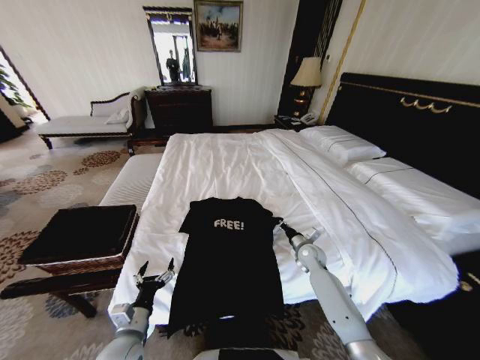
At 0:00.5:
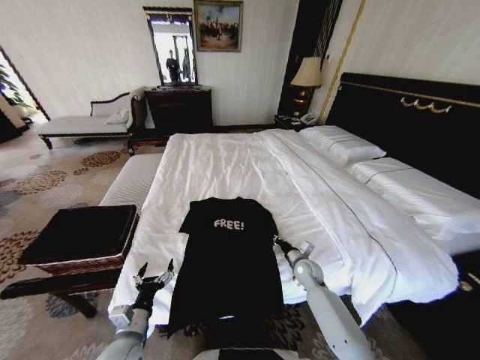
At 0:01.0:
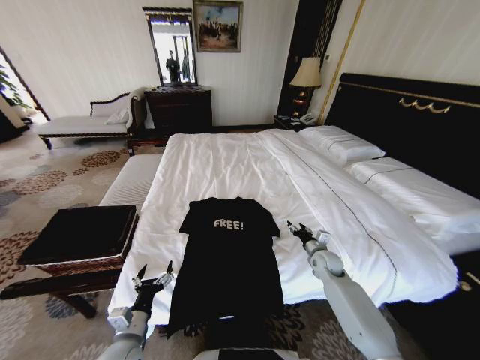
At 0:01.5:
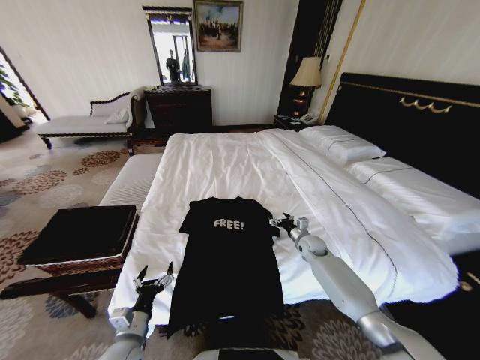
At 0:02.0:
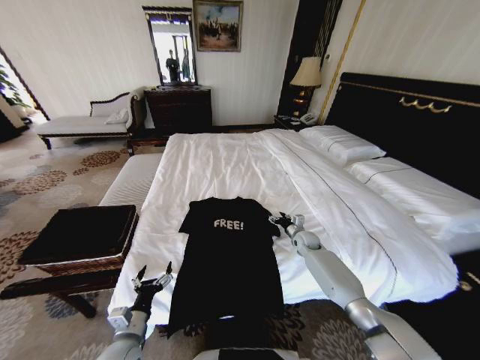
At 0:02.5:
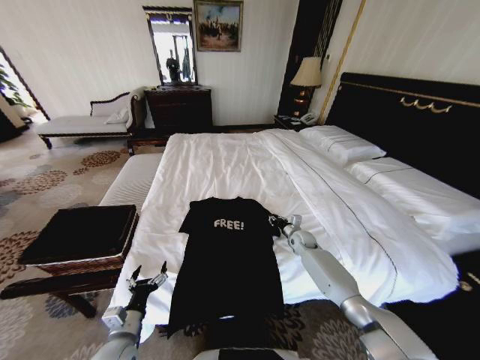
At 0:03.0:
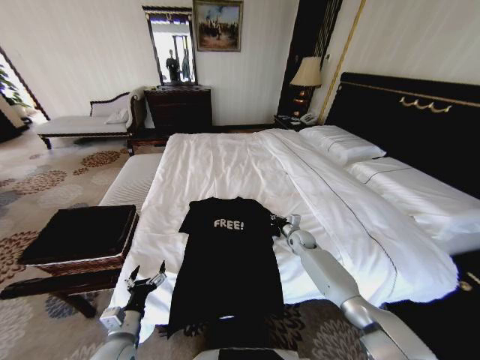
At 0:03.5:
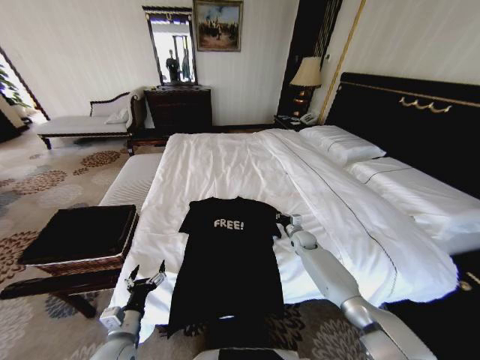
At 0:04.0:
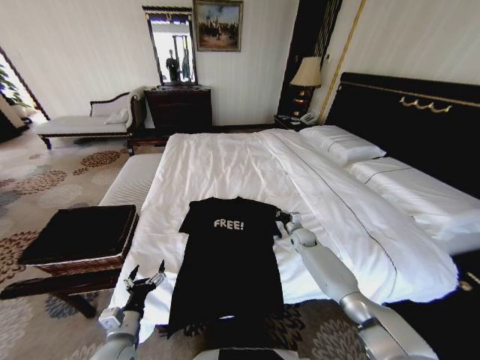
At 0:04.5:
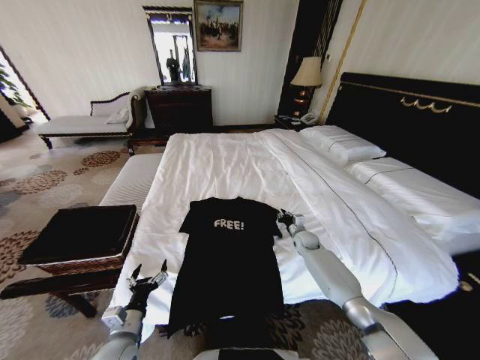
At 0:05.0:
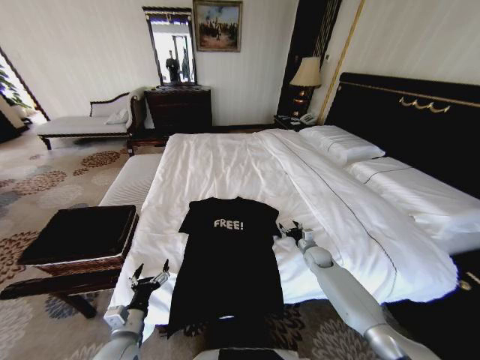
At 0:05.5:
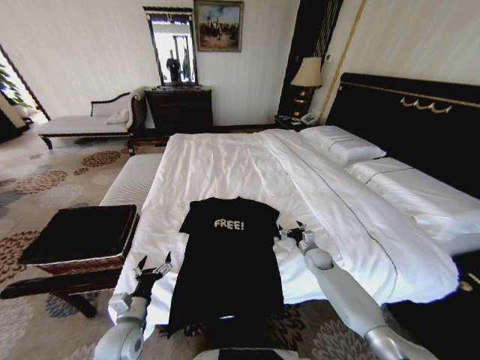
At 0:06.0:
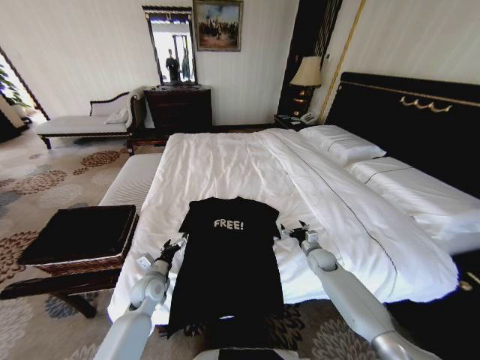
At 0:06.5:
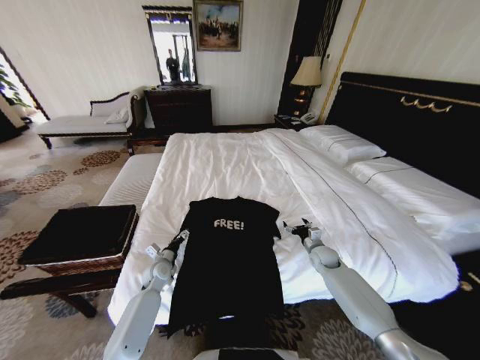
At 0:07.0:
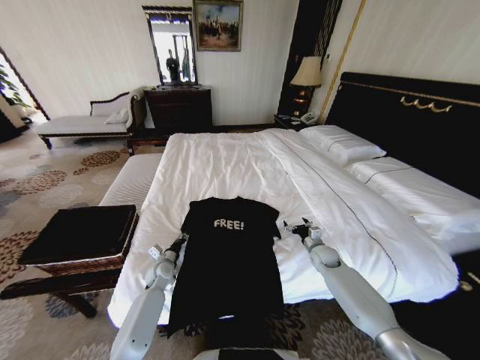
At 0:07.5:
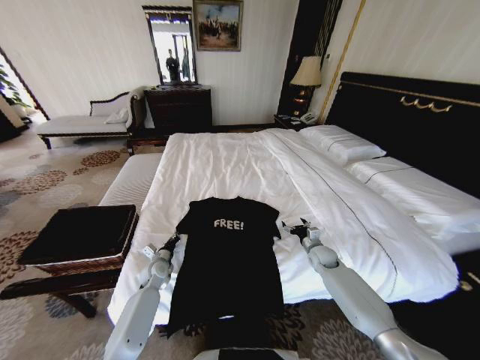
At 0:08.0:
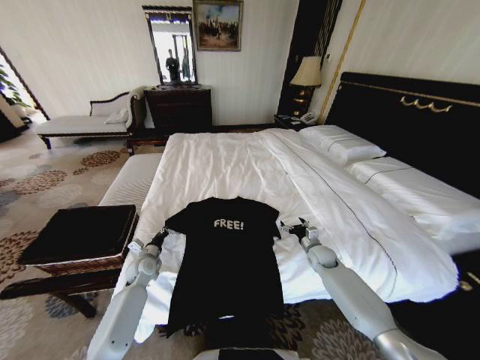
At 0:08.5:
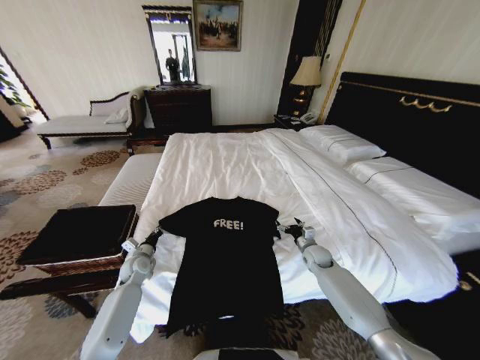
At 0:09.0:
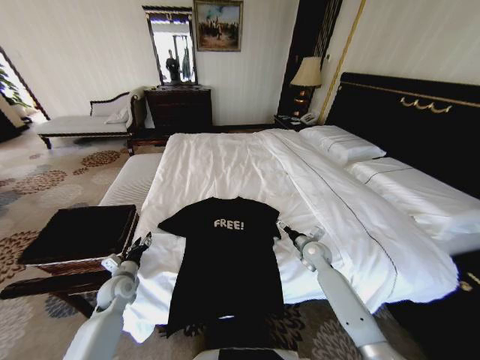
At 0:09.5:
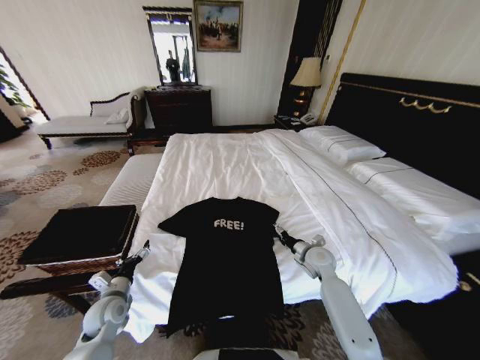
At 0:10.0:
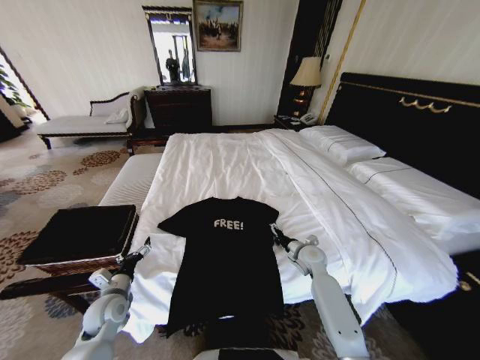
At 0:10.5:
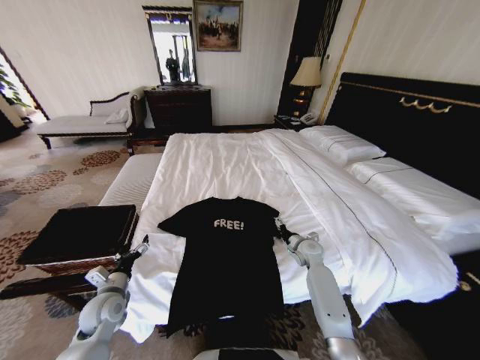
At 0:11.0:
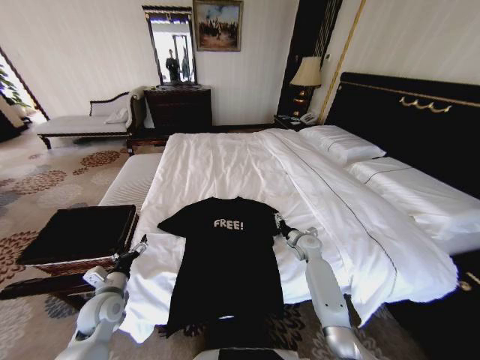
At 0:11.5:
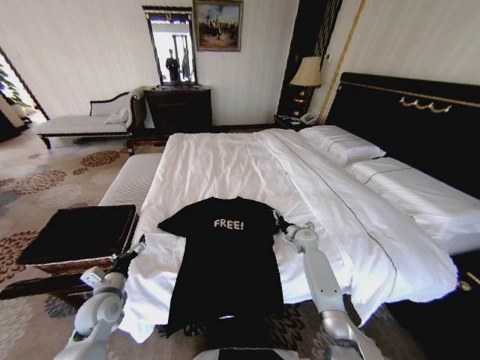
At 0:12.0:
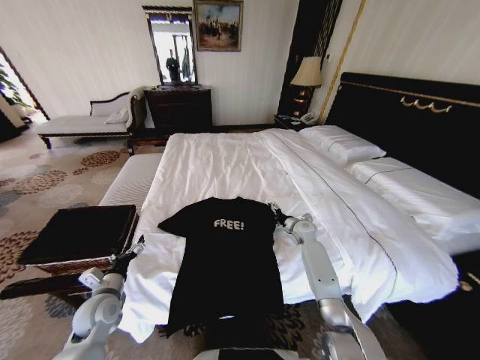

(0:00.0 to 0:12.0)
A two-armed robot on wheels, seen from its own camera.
Task of the whole recording: Fold the clothes on the bed and place them into the basket.
0:00.0 - 0:02.0: The right gripper shifts about 5 cm forward, and opens up.
0:02.0 - 0:04.0: The right gripper closes.
0:04.0 - 0:06.0: The right gripper shifts roughly 10 cm backward, and opens up; the left gripper travels forward by some 15 cm.
0:06.0 - 0:08.0: The left gripper goes roughly 10 cm forward and to the left, and closes.
0:08.0 - 0:10.0: The right gripper is displaced to the left by approximately 5 cm; the left gripper travels backward by roughly 15 cm, and opens.
0:10.0 - 0:12.0: The right gripper goes approximately 10 cm forward.

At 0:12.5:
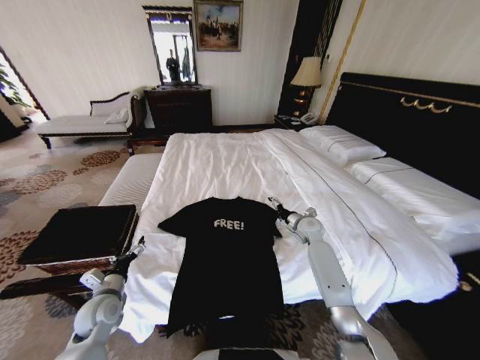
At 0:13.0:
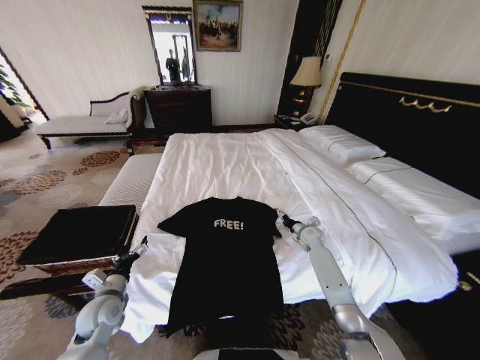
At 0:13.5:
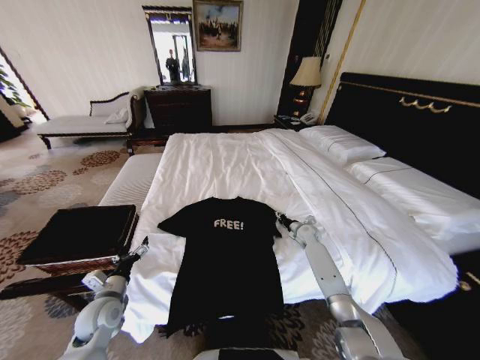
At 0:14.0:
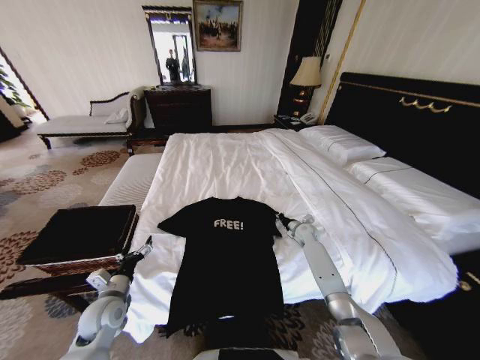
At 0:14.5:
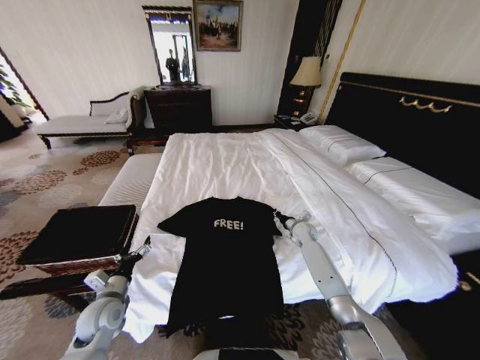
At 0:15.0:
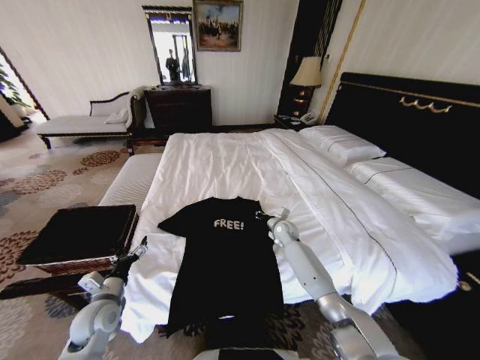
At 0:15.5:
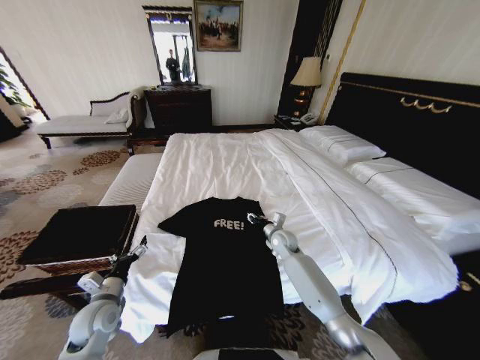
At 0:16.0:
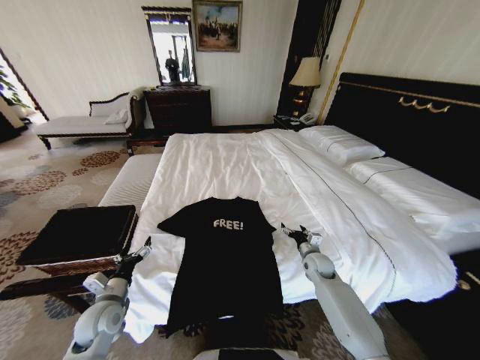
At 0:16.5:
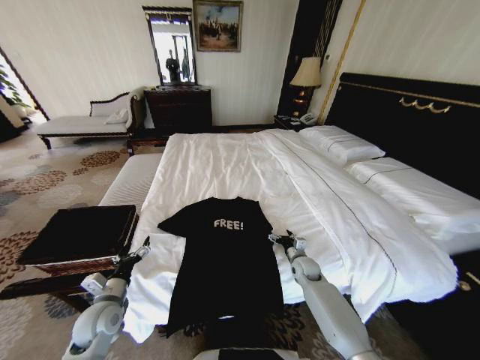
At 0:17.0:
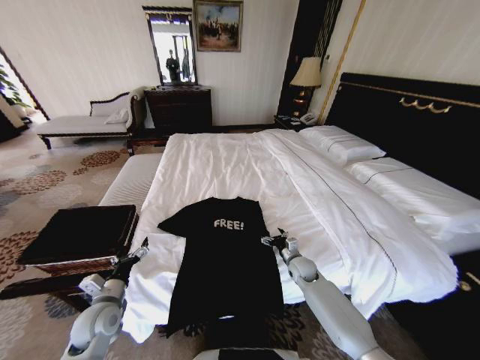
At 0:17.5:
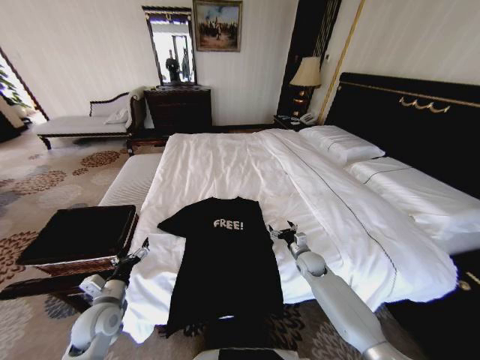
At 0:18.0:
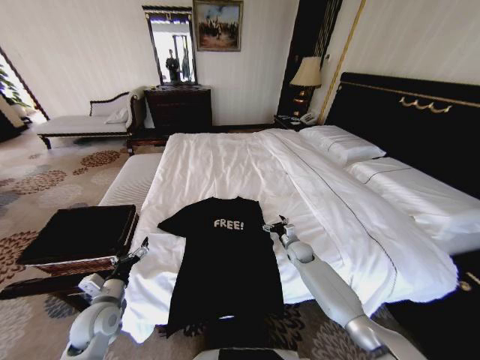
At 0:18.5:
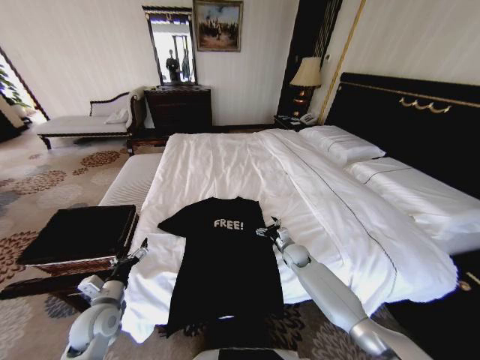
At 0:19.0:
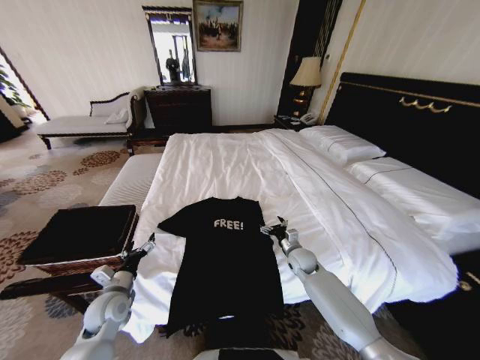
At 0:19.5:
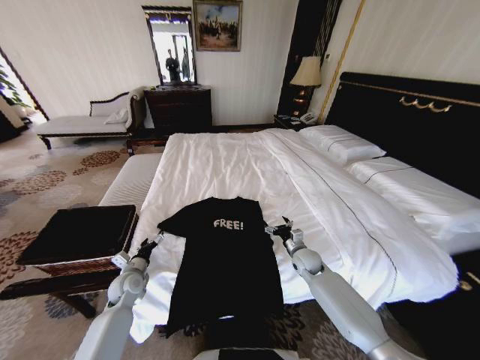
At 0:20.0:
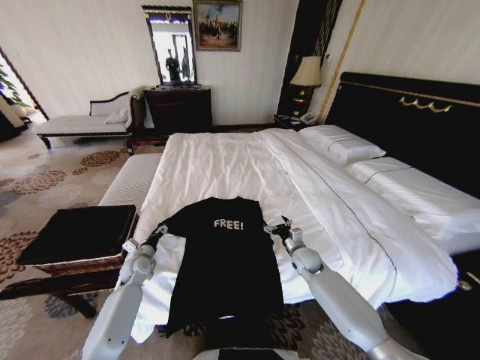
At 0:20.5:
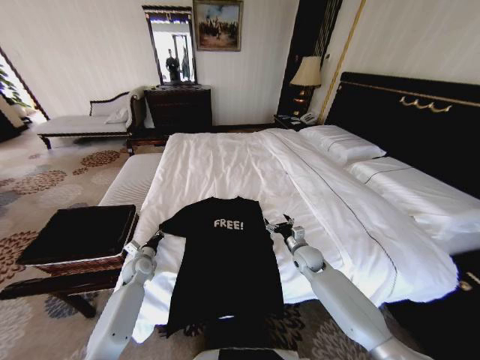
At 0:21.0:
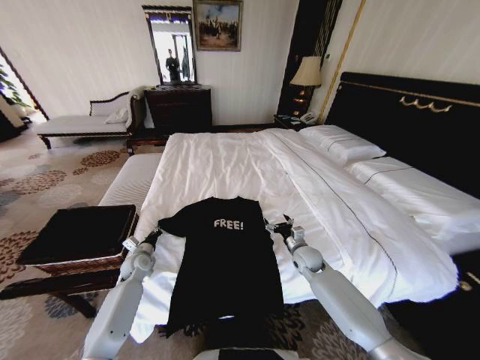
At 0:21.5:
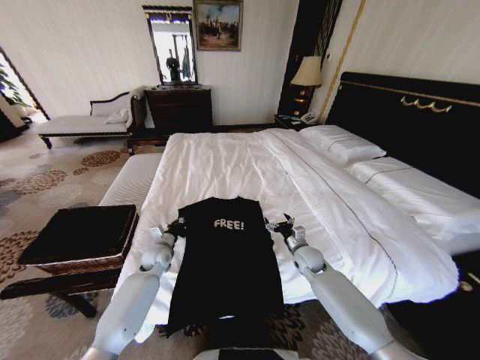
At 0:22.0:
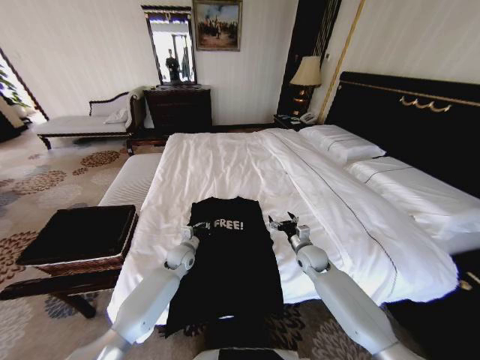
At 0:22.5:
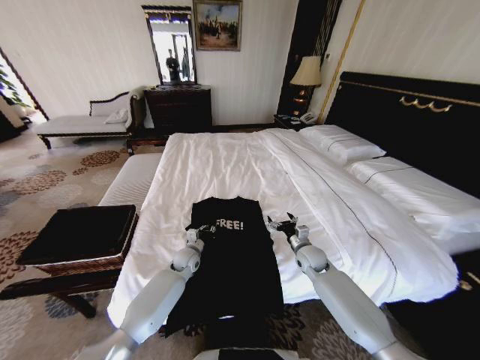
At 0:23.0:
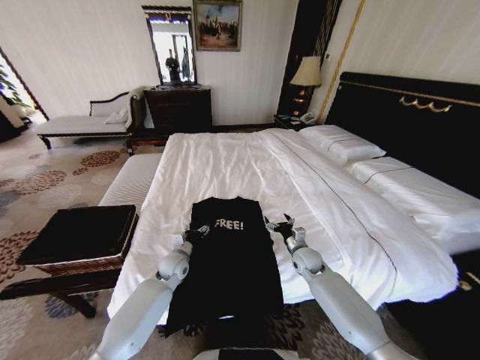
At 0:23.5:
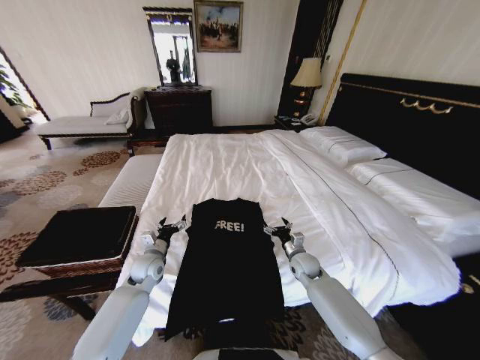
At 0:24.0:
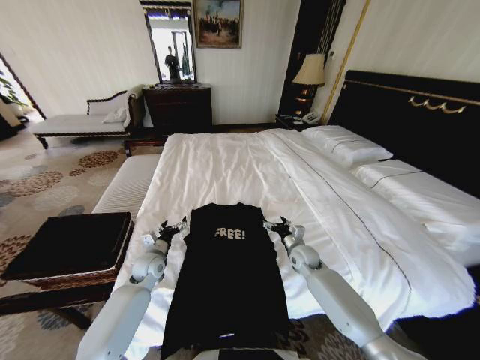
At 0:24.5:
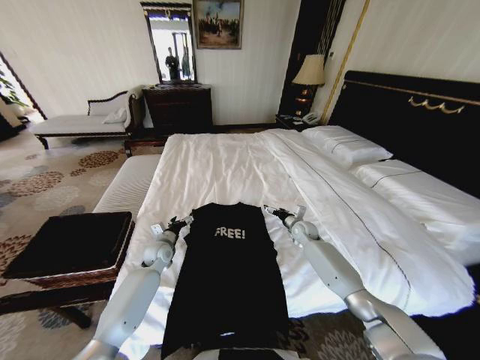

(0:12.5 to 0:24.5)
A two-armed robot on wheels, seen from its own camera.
Task of the whole recording: Fold the clothes on the bed and place them into the basket.
0:12.5 - 0:14.5: The right gripper travels downward by about 5 cm, and closes.
0:14.5 - 0:16.5: The right gripper moves backward and downward, roughly 15 cm, and opens up.
0:16.5 - 0:18.5: The right gripper changes place by about 5 cm.
0:18.5 - 0:20.5: The right gripper moves some 5 cm, while the left gripper shifts about 20 cm forward and downward, and closes.
0:20.5 - 0:22.5: The left gripper travels to the right by about 20 cm.
0:22.5 - 0:24.5: The right gripper is displaced forward by approximately 10 cm. Meanwhile the left gripper moves to the left, about 10 cm, and opens.

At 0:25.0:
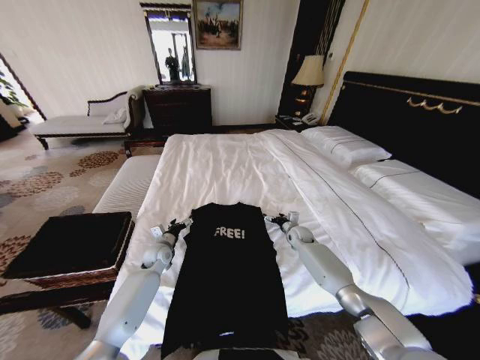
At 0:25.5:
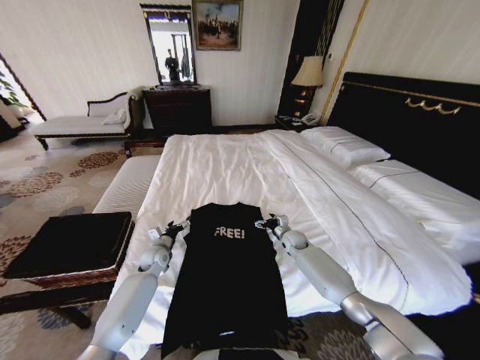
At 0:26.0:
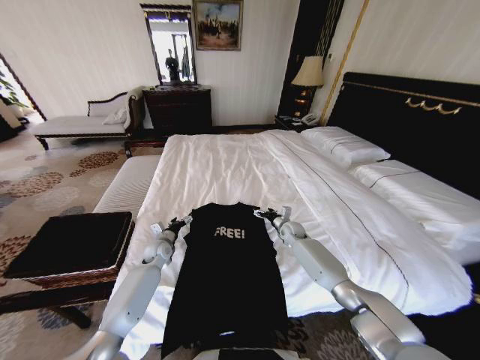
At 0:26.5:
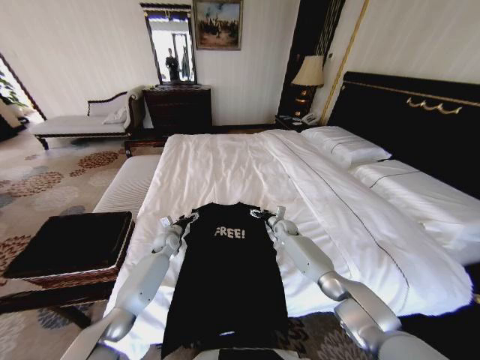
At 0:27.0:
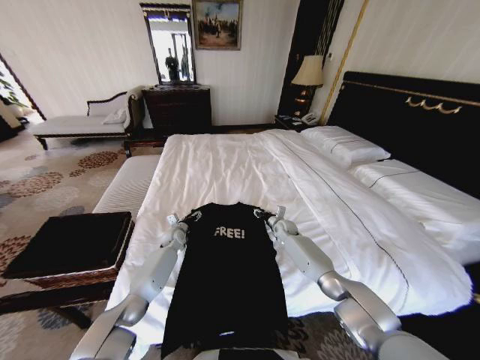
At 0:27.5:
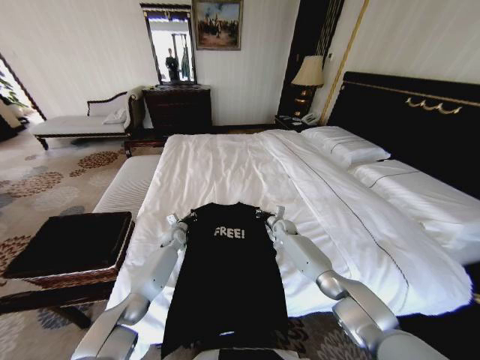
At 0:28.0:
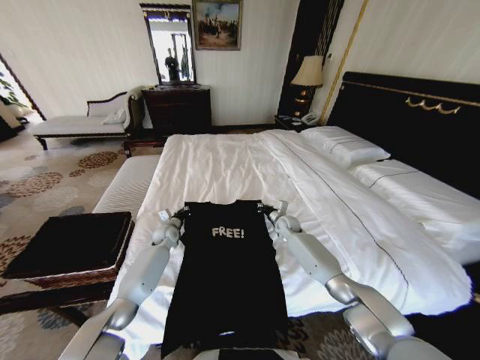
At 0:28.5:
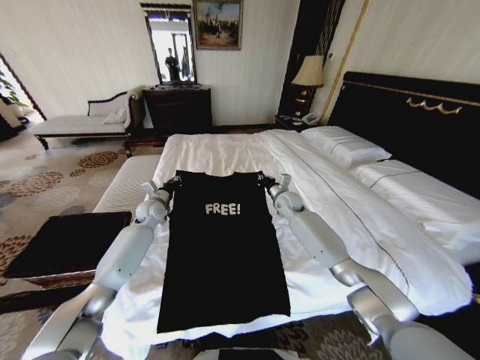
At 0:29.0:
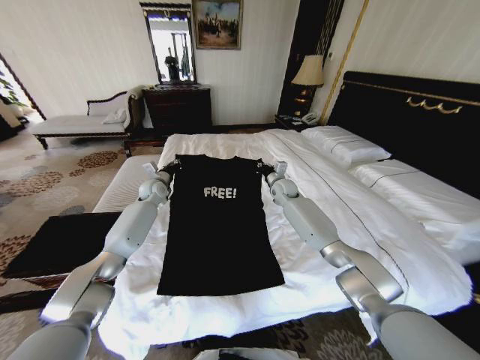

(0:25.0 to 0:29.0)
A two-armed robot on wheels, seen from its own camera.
Task of the whole recording: Fold the clothes on the bed and place them into the basket.
0:25.0 - 0:27.0: The right gripper is displaced to the left by approximately 5 cm, and closes up. Meanwhile the left gripper heads forward, covering about 10 cm.
0:27.0 - 0:29.0: The two grippers go approximately 20 cm upward. The right gripper closes up. The left gripper closes up.
